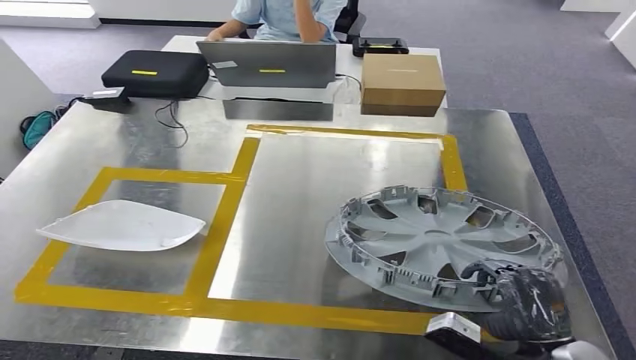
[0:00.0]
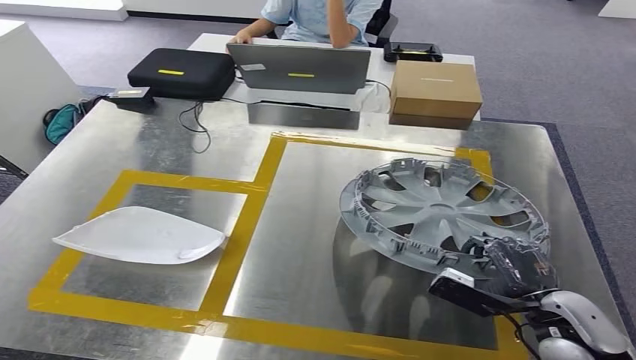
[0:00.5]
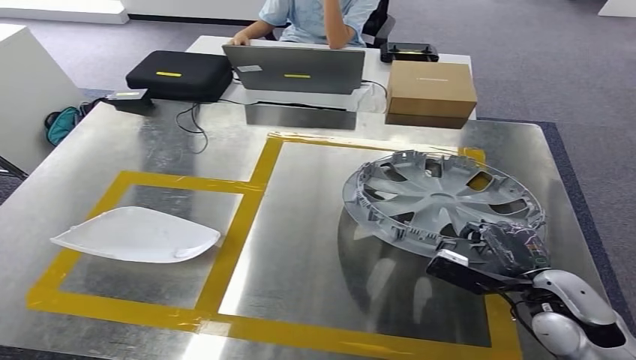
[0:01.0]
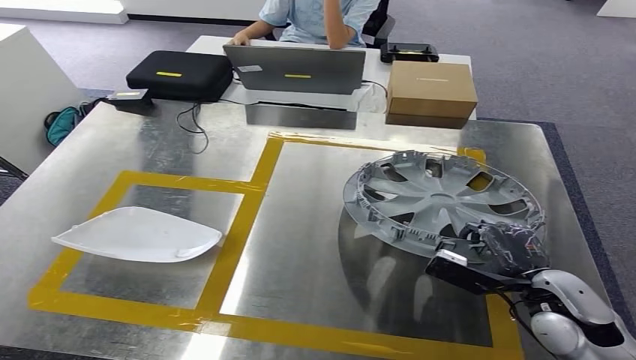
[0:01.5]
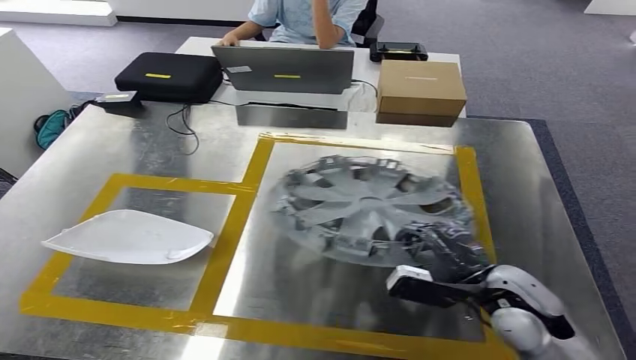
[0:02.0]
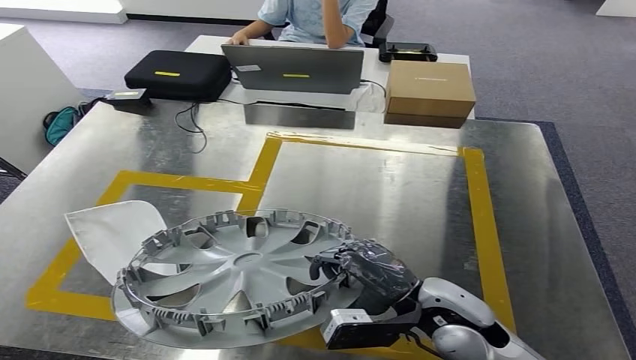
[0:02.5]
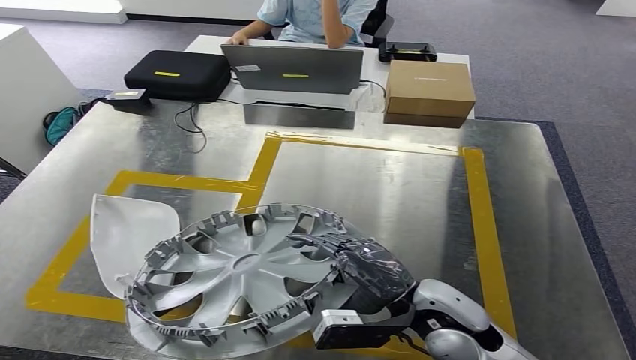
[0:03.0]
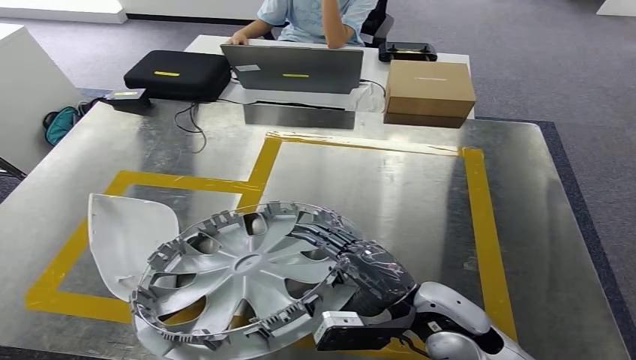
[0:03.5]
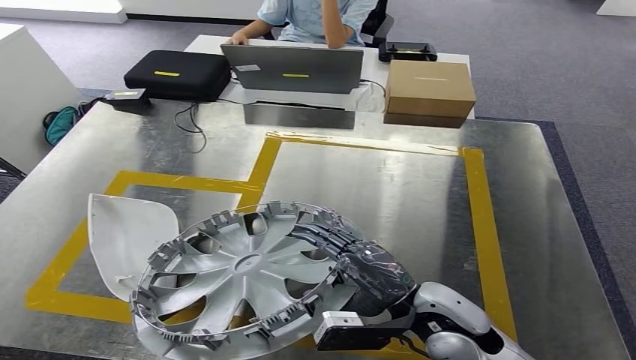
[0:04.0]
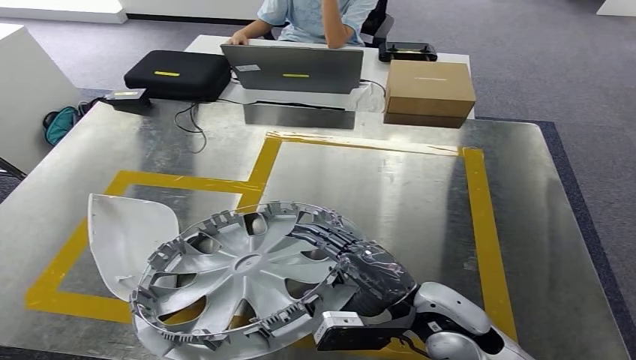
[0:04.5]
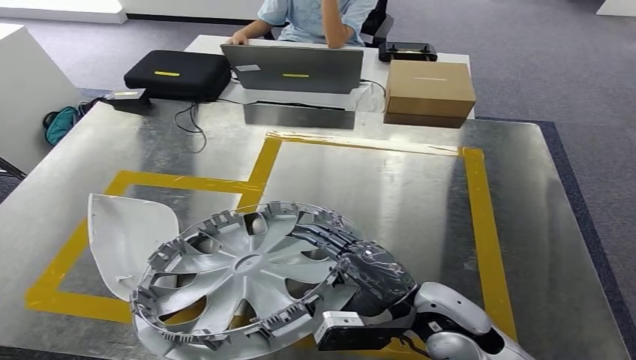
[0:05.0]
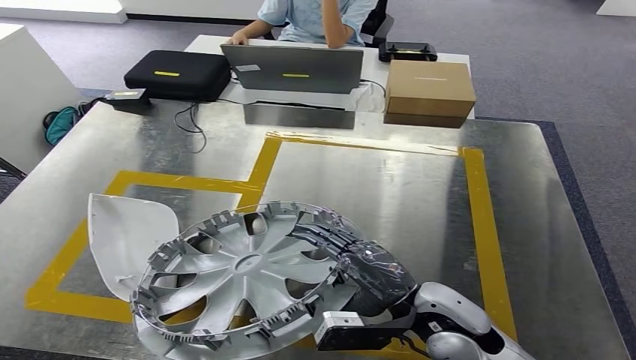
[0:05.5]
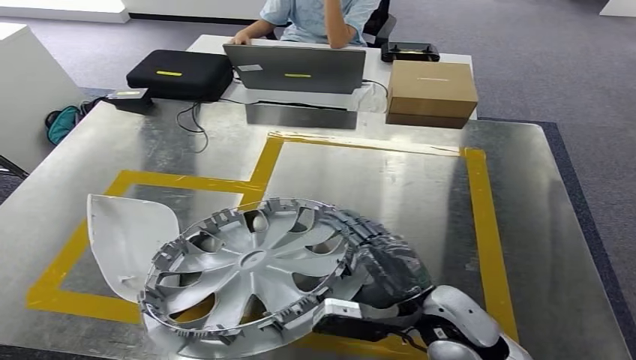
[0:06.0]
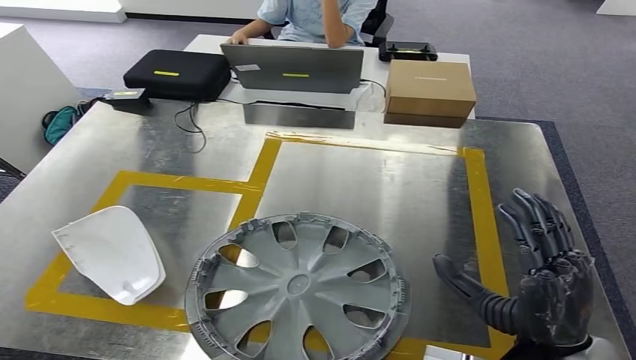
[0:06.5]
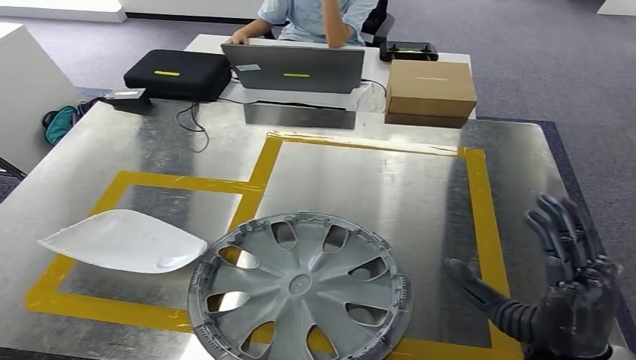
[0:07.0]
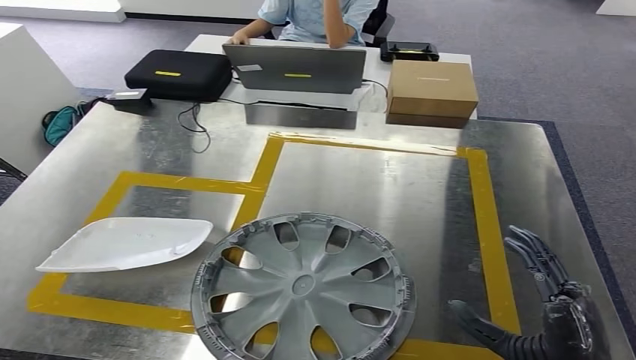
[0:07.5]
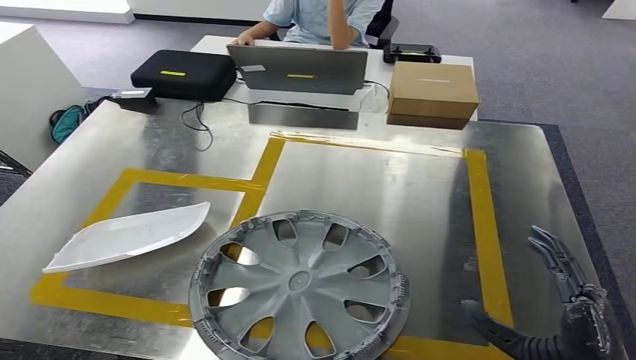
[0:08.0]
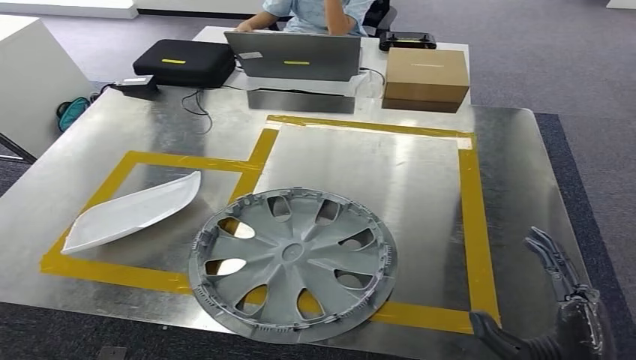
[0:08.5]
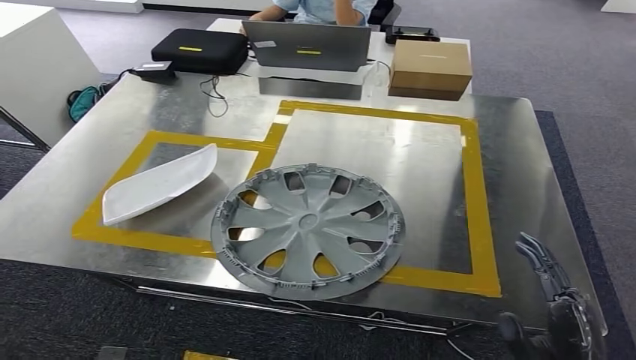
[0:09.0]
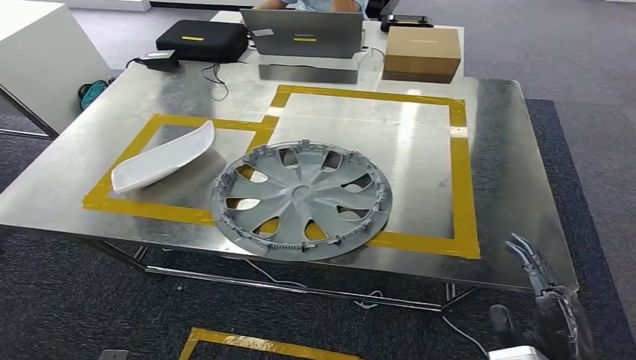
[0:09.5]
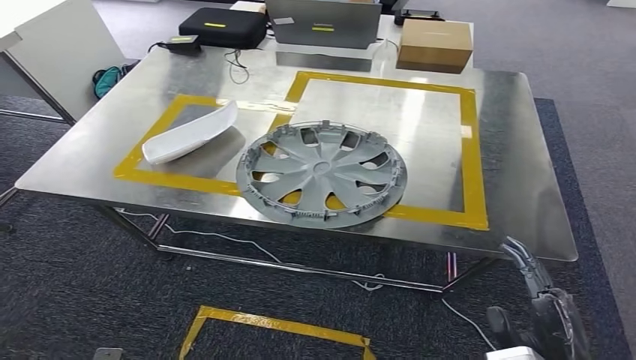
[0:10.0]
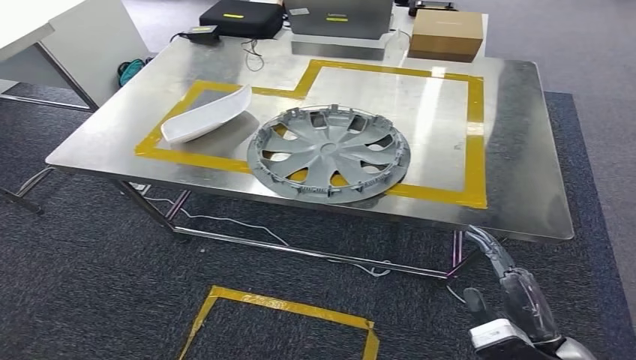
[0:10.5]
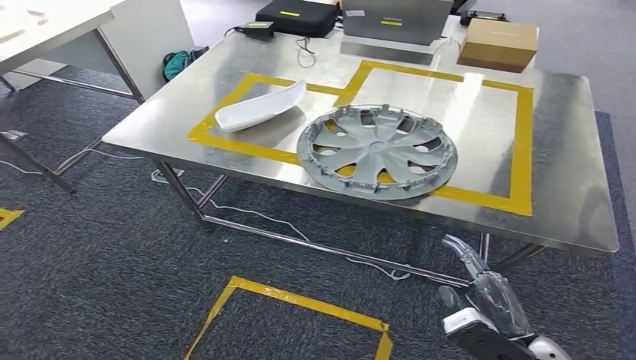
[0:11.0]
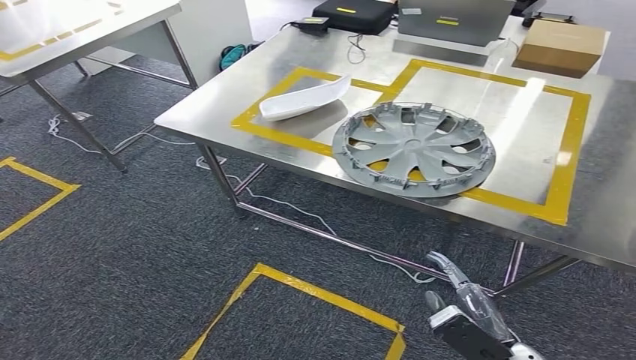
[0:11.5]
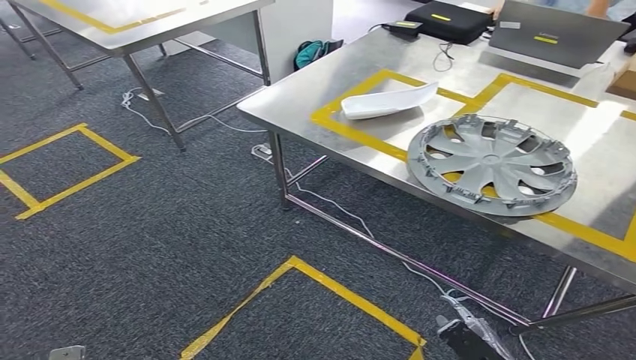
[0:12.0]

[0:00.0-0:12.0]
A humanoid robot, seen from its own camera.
Step, 0:00.0 to 0:07.5: Insert the small component into the corresponding slot on the workbench.
0:04.0 to 0:06.0: The hands make only small movements.

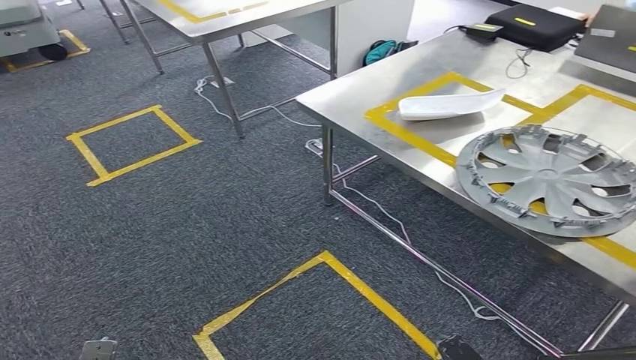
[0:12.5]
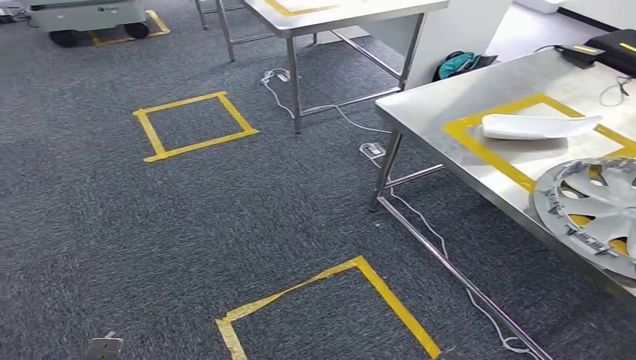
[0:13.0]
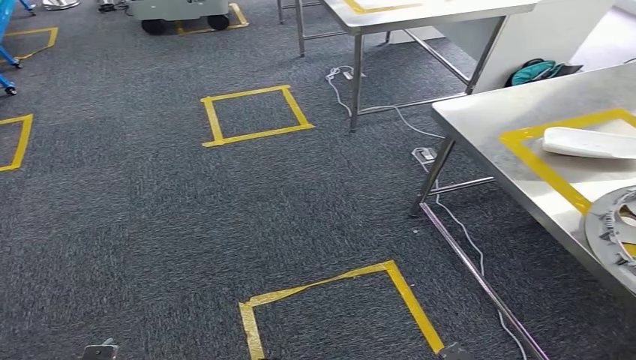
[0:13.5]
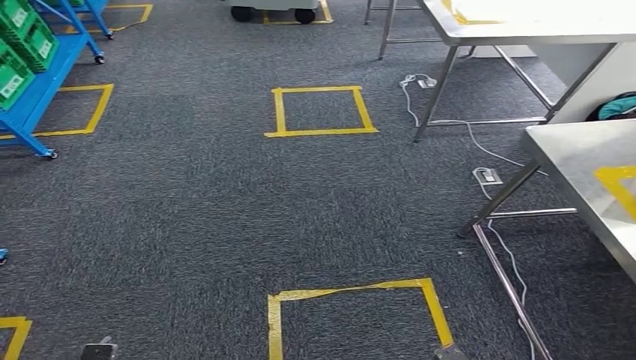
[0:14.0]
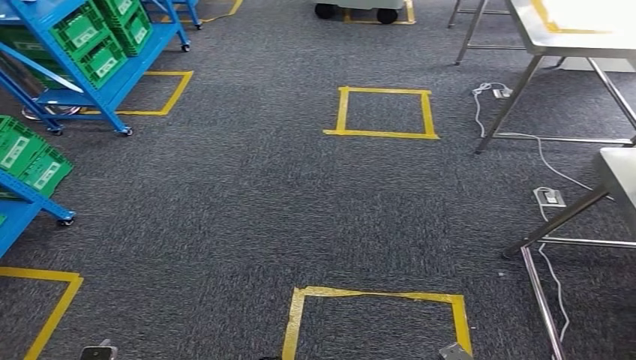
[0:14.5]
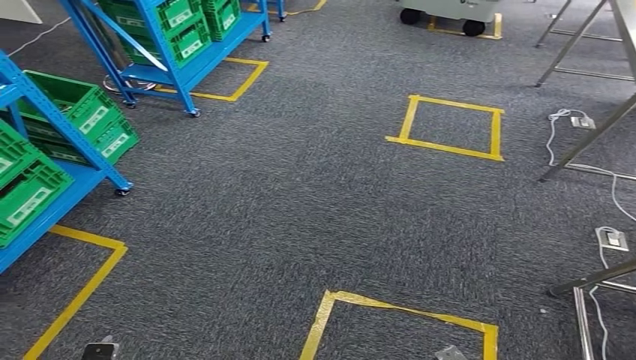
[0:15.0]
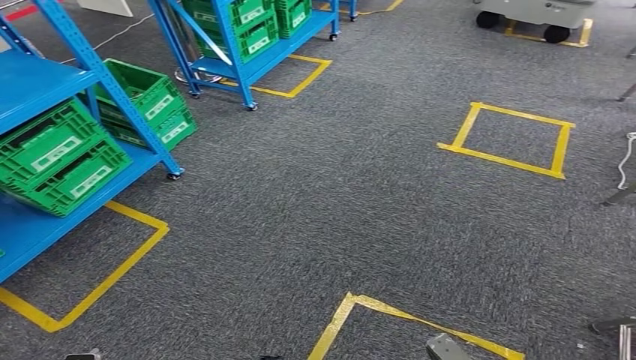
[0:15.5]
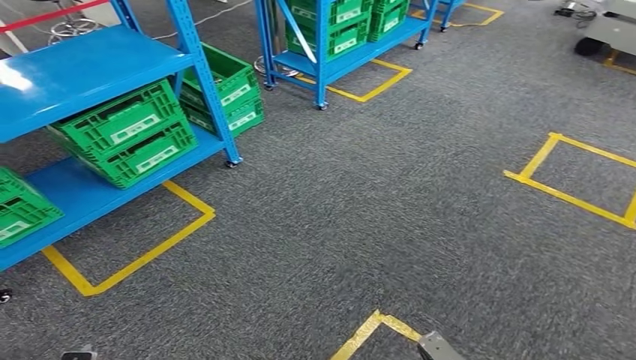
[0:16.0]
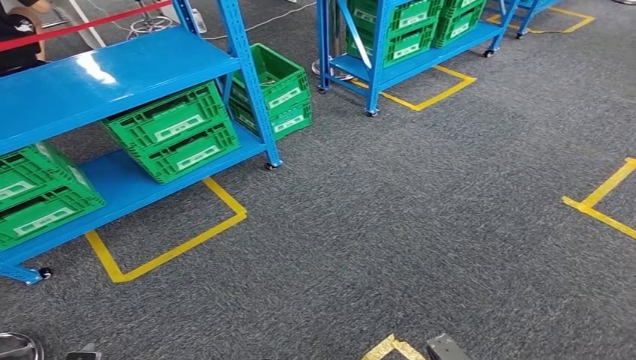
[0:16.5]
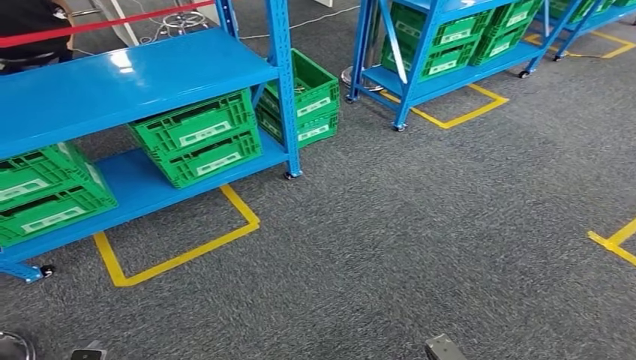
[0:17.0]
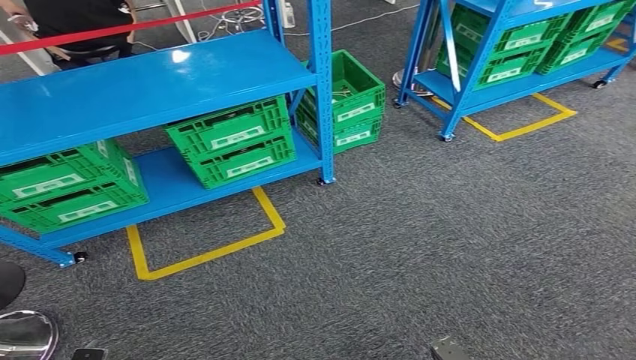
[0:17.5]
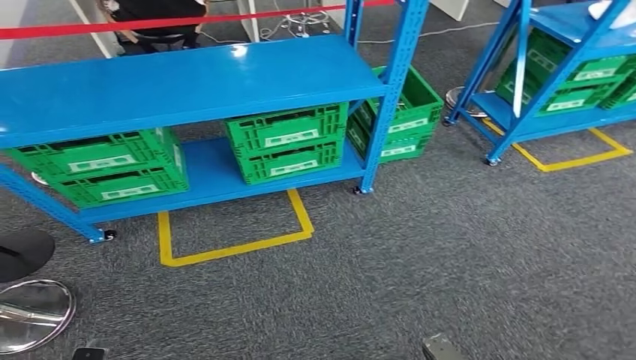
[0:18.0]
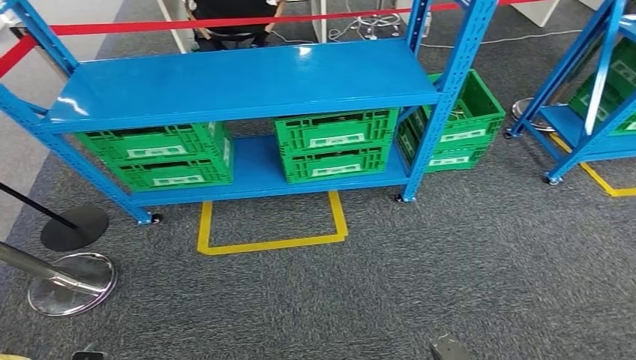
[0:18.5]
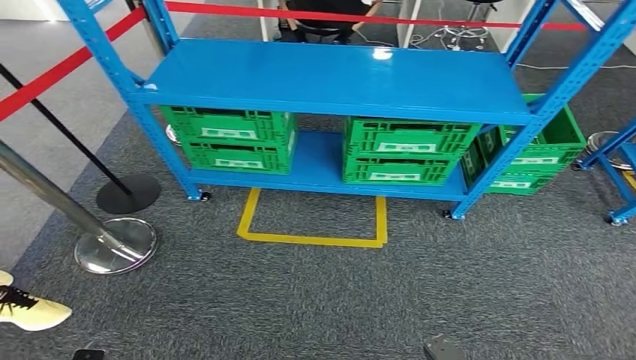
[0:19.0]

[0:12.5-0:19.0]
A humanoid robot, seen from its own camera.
Step, 0:12.5 to 0:19.0: Move to the initial position of the workbench.
